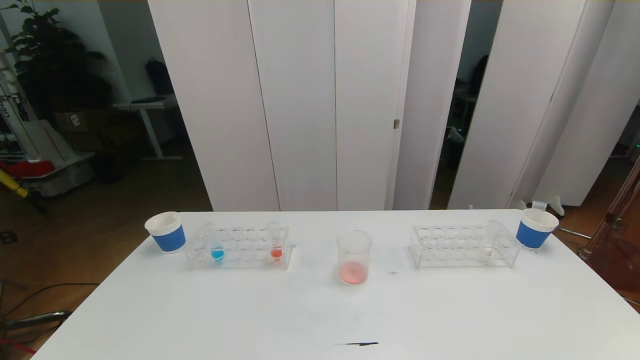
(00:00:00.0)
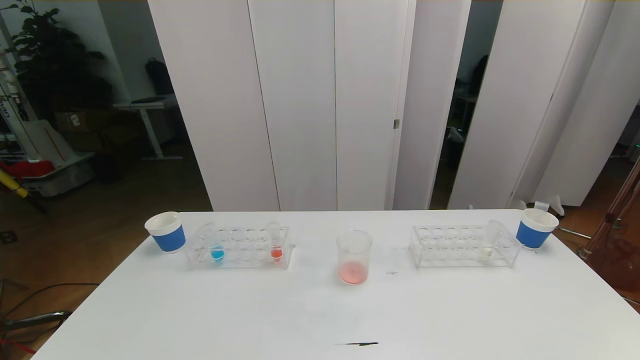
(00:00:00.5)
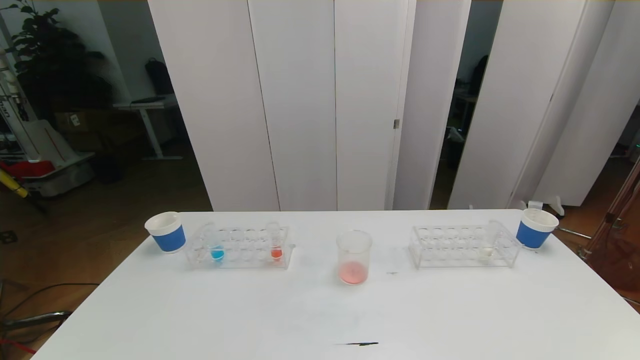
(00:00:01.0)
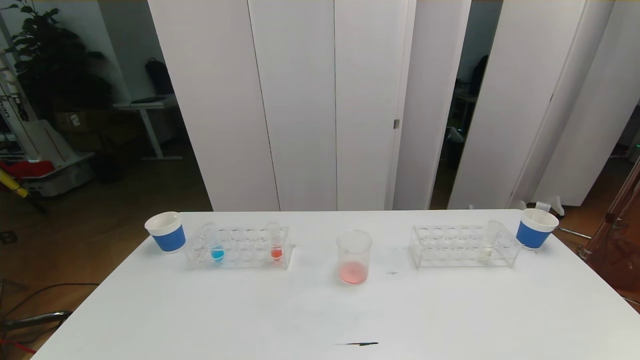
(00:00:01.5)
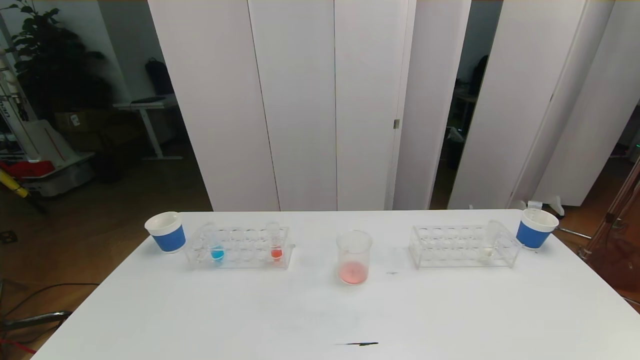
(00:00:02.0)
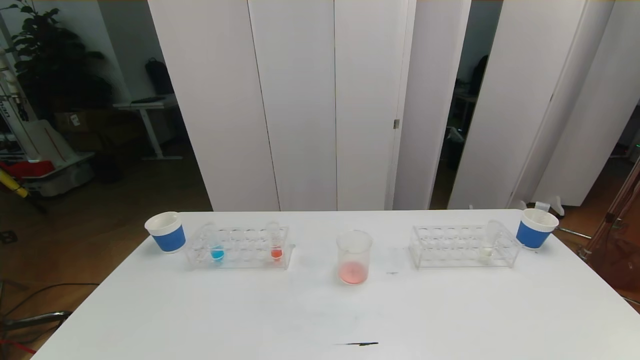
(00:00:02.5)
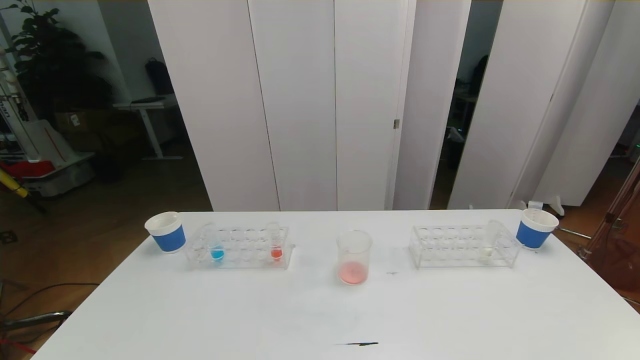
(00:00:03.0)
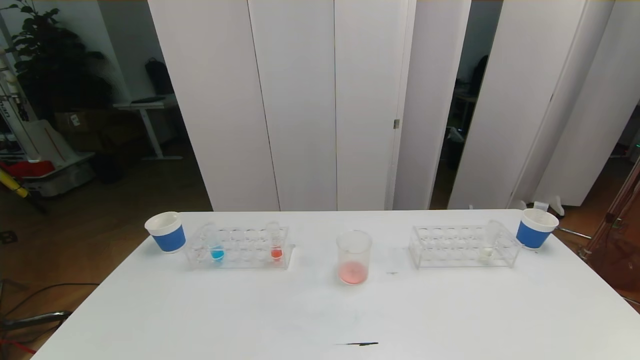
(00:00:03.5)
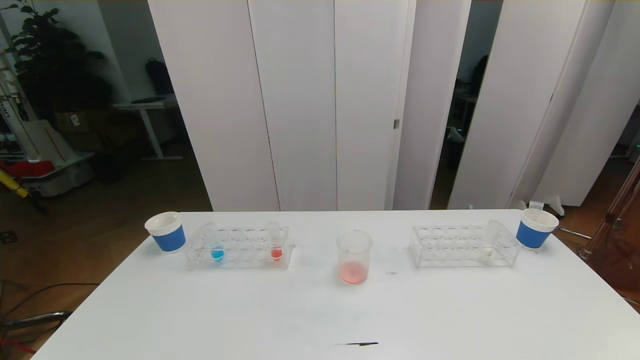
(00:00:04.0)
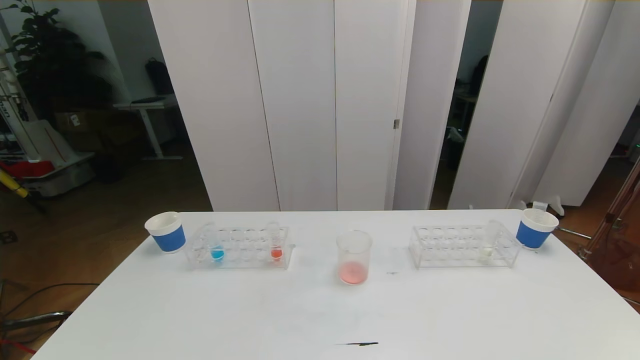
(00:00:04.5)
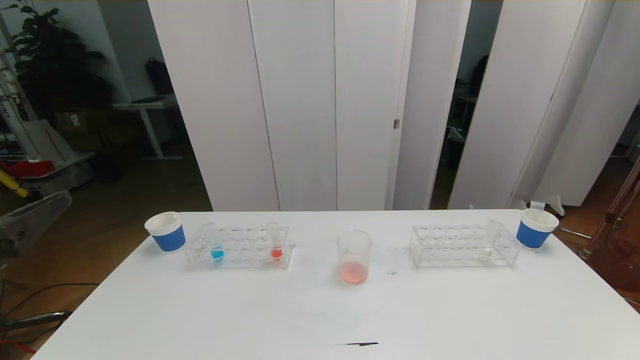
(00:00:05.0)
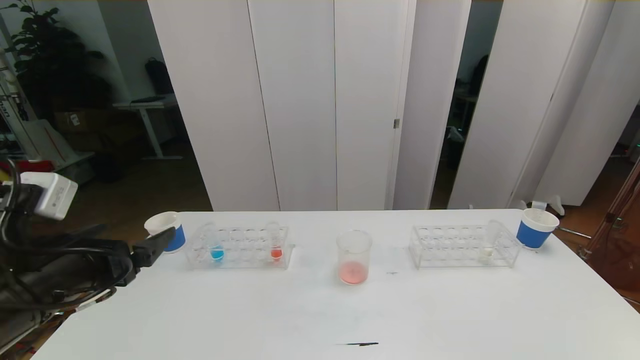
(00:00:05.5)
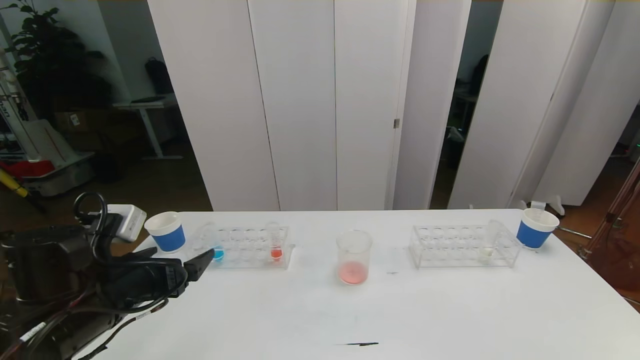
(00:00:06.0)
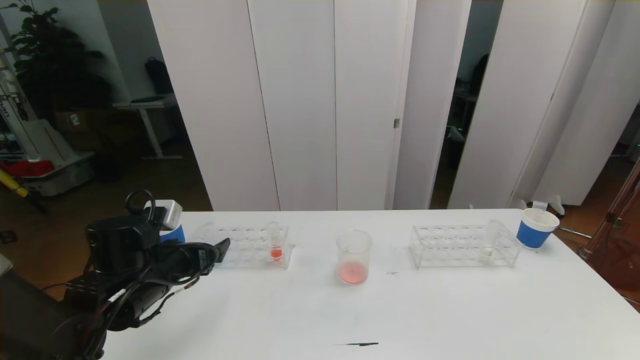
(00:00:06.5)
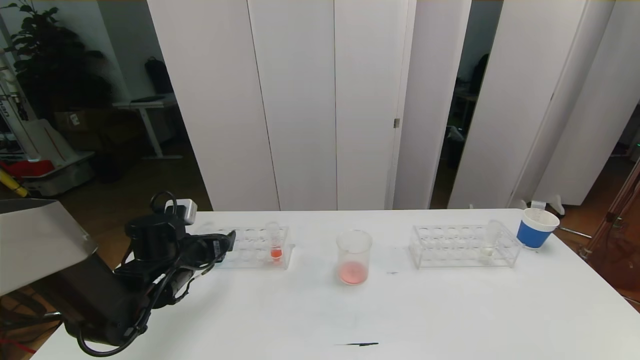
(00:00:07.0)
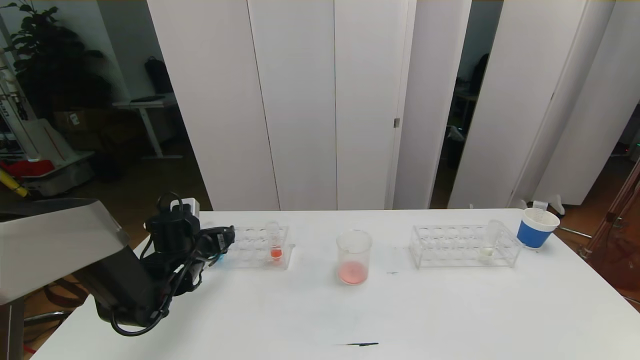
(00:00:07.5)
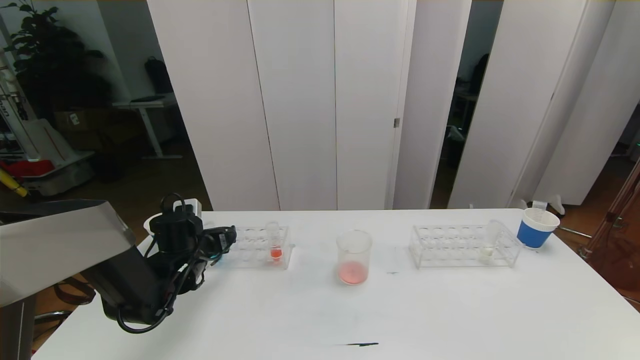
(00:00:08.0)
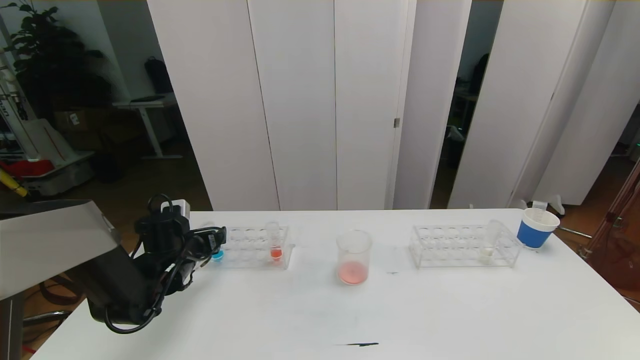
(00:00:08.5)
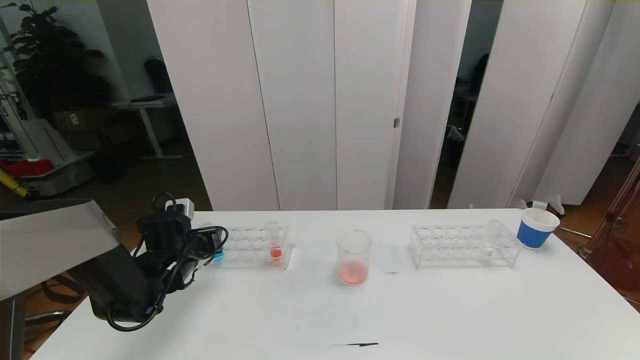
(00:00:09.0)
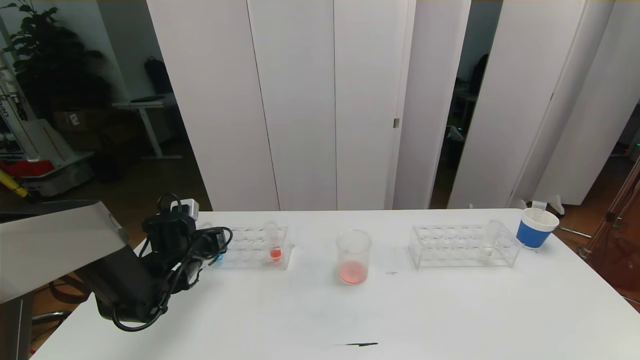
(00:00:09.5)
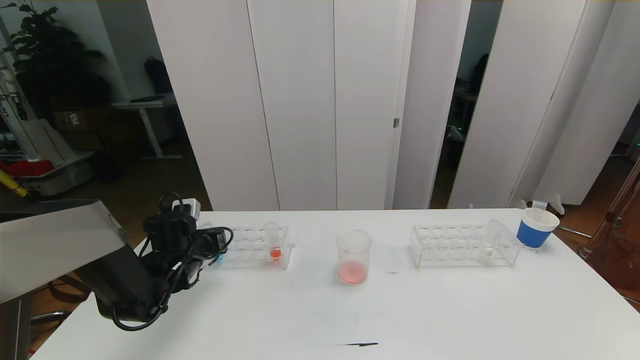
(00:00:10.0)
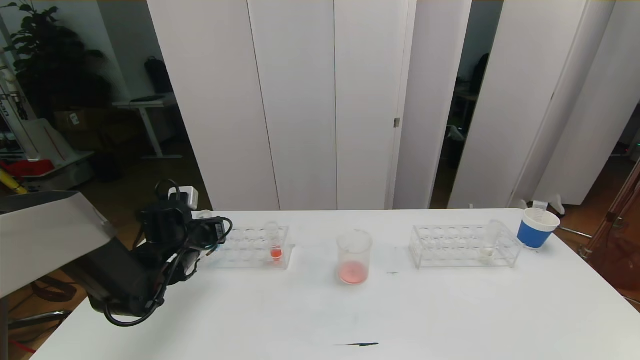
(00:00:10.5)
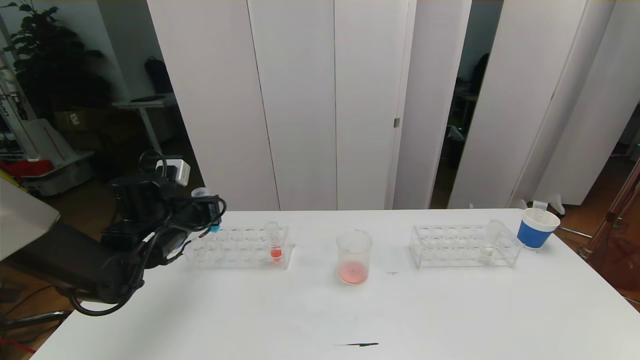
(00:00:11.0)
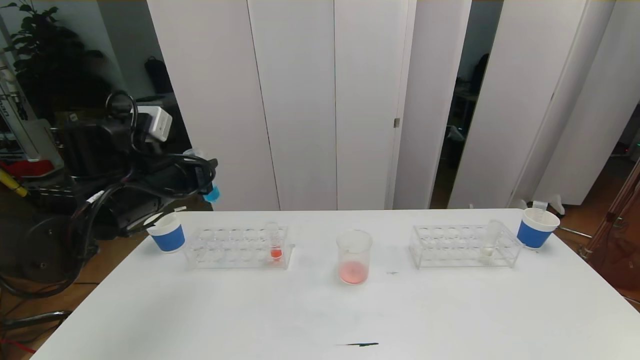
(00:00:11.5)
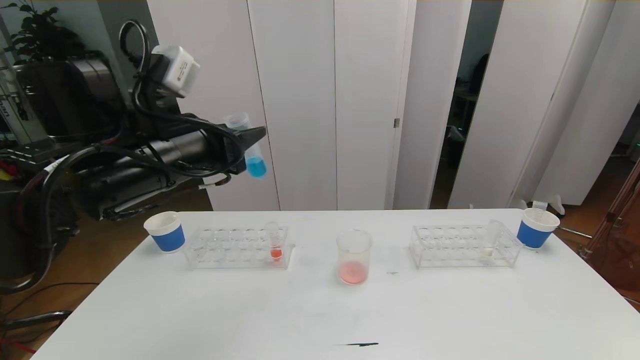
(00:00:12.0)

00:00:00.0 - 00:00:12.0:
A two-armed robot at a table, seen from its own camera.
Task of the whole recording: pick up the test tube with red pigment the test tube with blue pigment and the test tube with white pigment by grippers and pour them into the beaker.
00:00:00.0 - 00:00:02.0: The two grippers keep their place.
00:00:04.0 - 00:00:06.0: The left gripper goes roughly 25 cm forward.
00:00:06.0 - 00:00:08.0: The left gripper is displaced forward and downward by about 20 cm.
00:00:08.0 - 00:00:10.0: The left gripper closes its fingers.
00:00:10.0 - 00:00:12.0: The left gripper is displaced upward and to the right by roughly 25 cm.

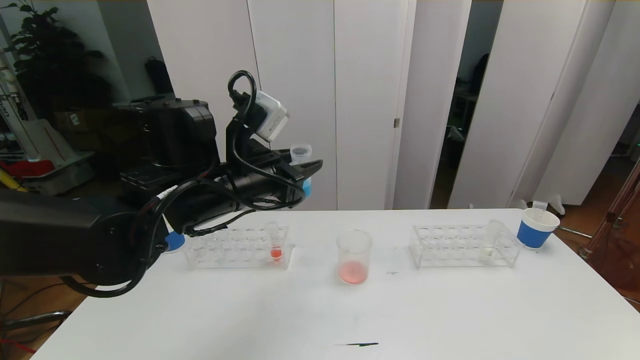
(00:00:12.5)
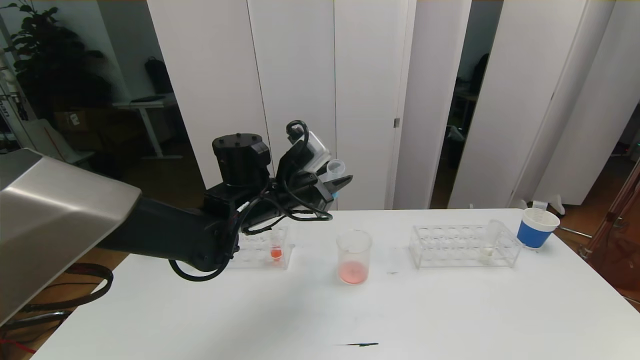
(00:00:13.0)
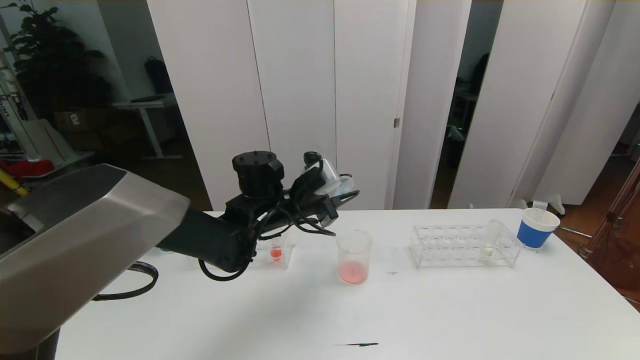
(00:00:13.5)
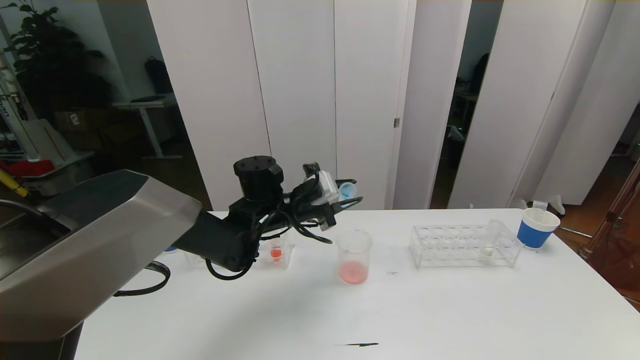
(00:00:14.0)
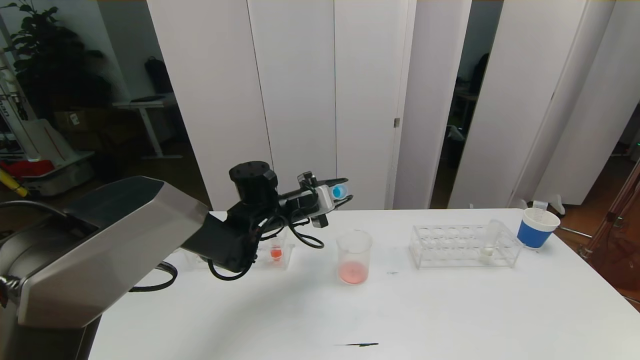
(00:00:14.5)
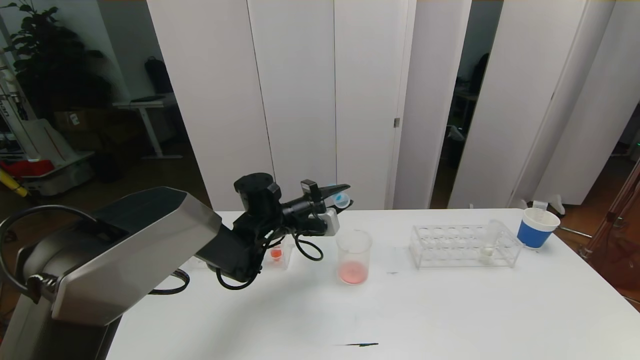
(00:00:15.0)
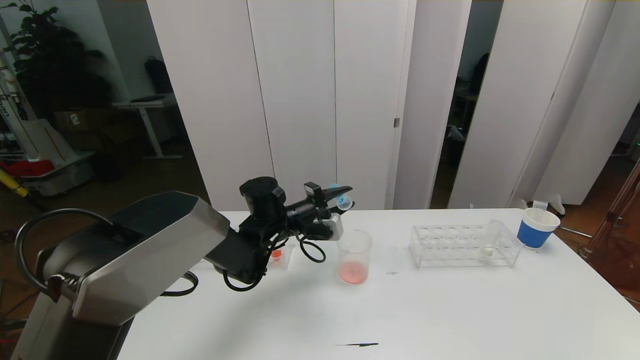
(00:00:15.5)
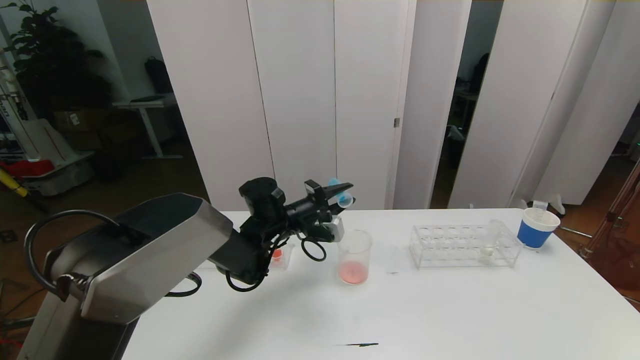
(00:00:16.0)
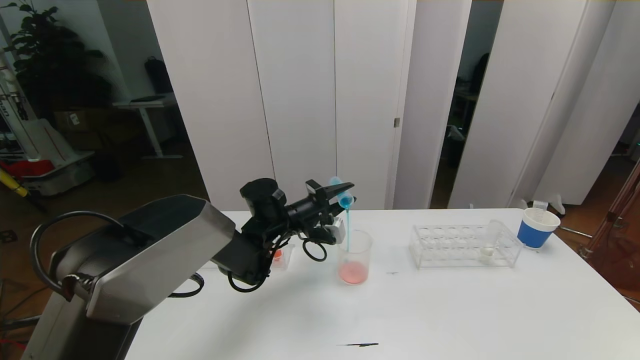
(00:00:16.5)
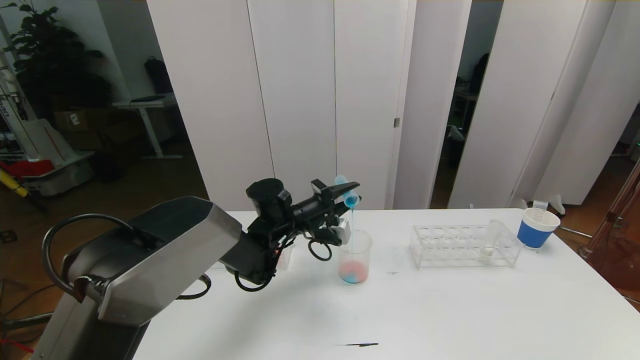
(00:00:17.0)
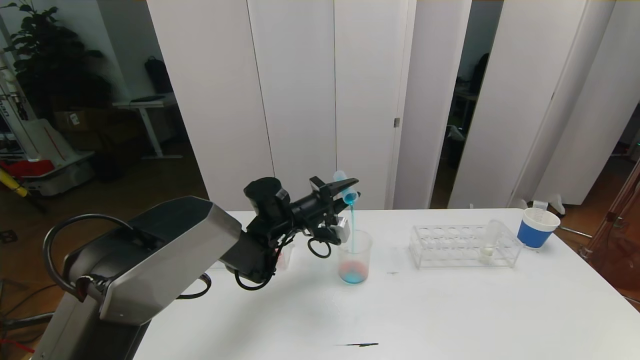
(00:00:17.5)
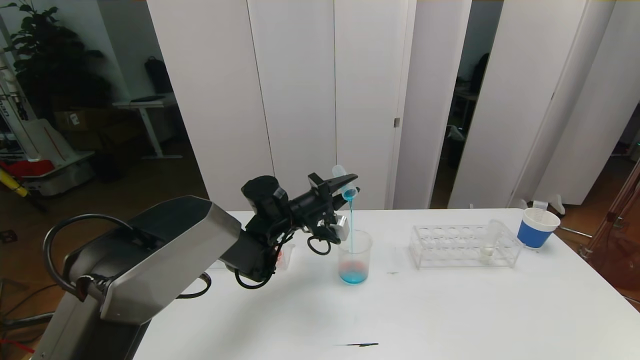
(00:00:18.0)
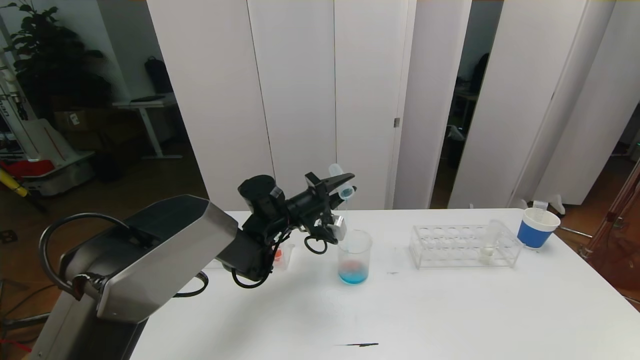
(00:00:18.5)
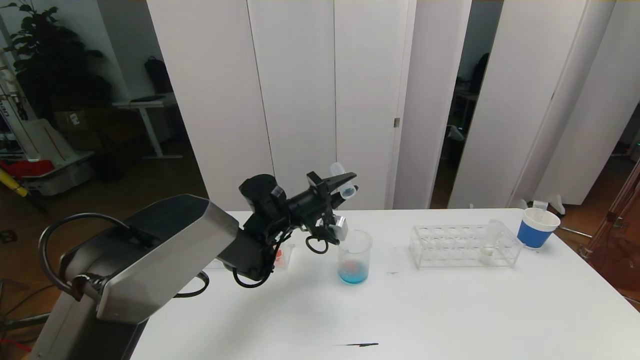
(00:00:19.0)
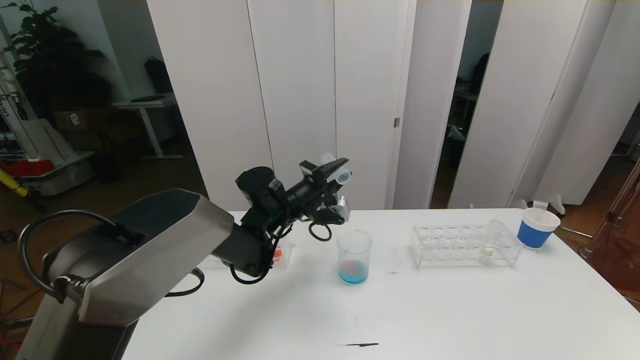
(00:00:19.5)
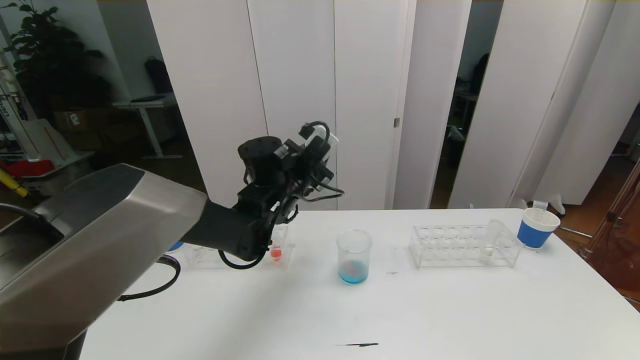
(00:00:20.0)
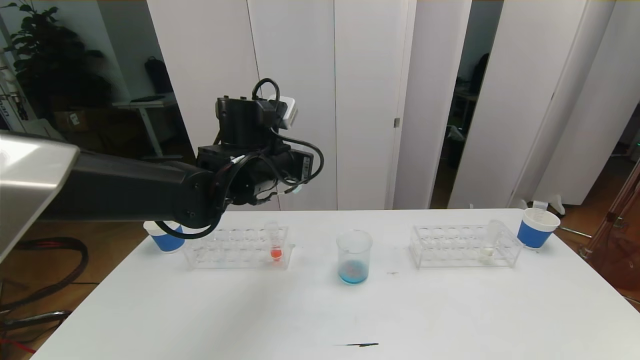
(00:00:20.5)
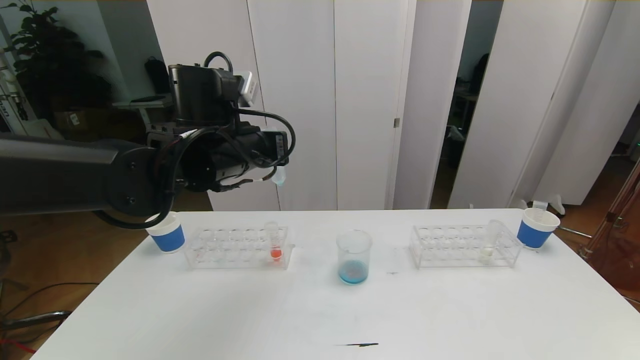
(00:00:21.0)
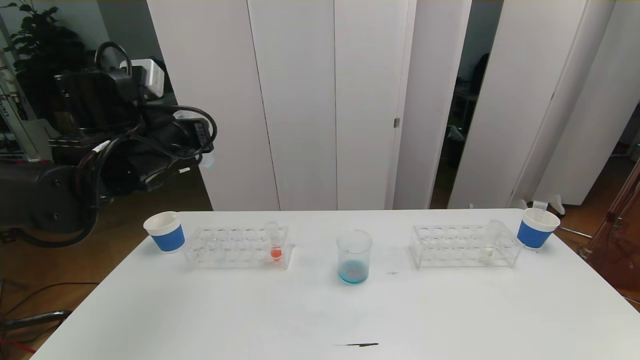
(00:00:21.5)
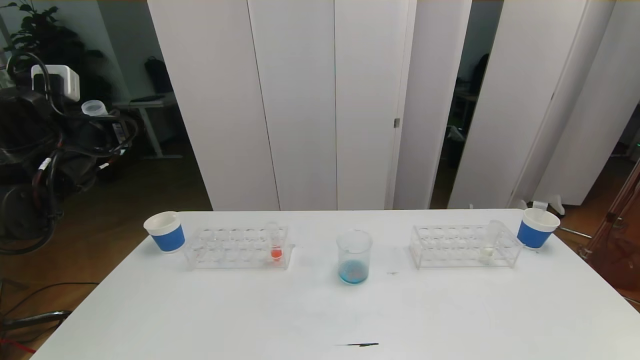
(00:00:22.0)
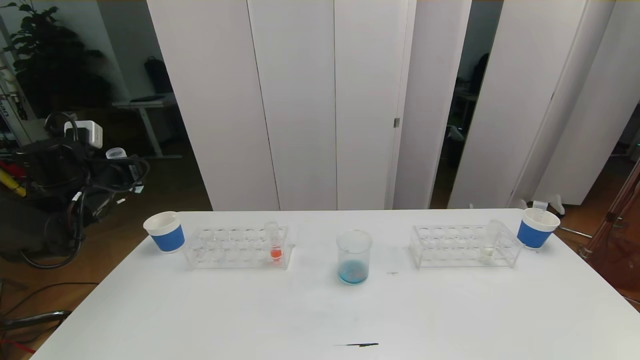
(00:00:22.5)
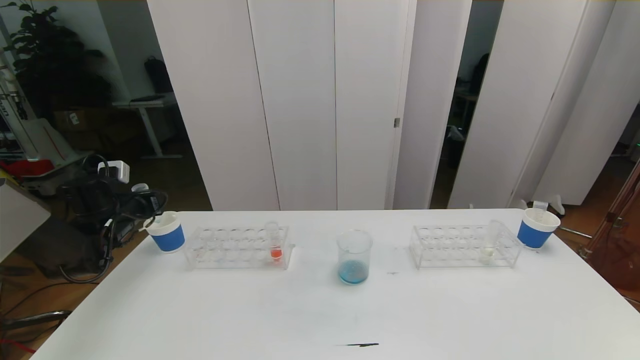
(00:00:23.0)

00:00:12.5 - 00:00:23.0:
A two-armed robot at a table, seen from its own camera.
Task of the whole recording: pick up the test tube with red pigment the test tube with blue pigment and the test tube with white pigment by grippers and pour them into the beaker.
00:00:12.5 - 00:00:14.5: The left gripper heads downward and forward, covering roughly 15 cm.
00:00:16.5 - 00:00:19.0: The grippers stay close to where they were, moving slightly.
00:00:19.0 - 00:00:21.0: The left gripper goes about 20 cm upward and backward.
00:00:21.0 - 00:00:23.0: The left gripper shifts roughly 30 cm to the left and downward.
